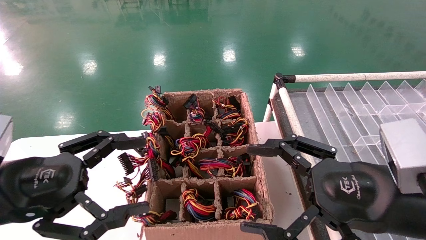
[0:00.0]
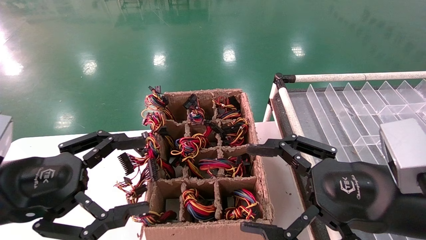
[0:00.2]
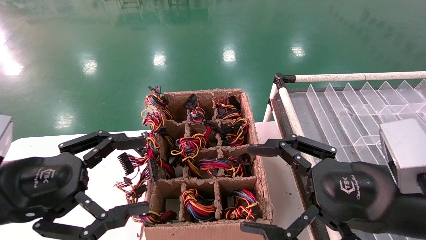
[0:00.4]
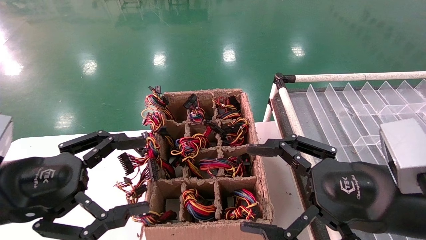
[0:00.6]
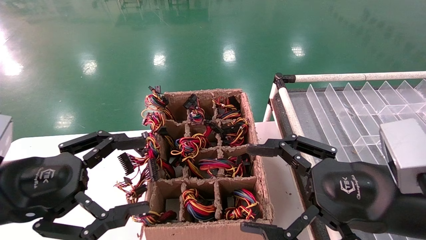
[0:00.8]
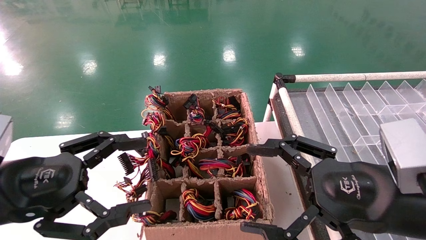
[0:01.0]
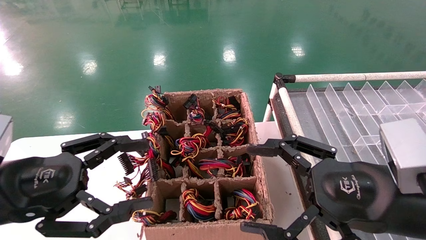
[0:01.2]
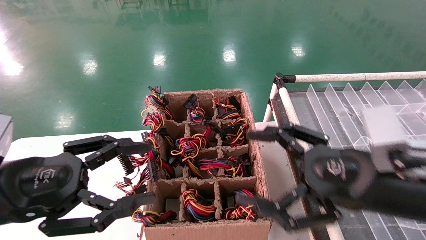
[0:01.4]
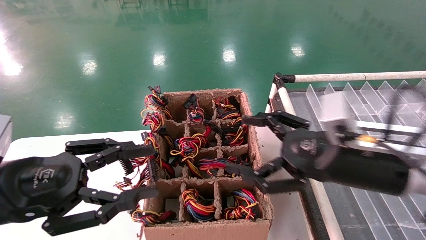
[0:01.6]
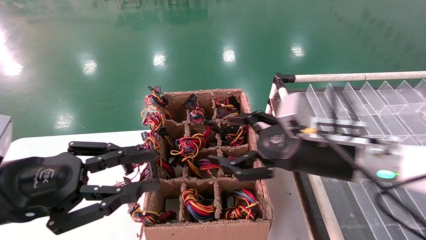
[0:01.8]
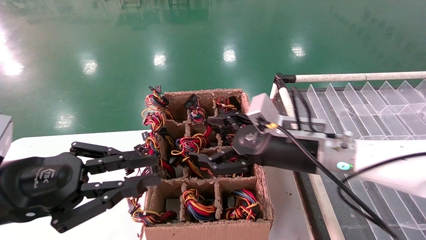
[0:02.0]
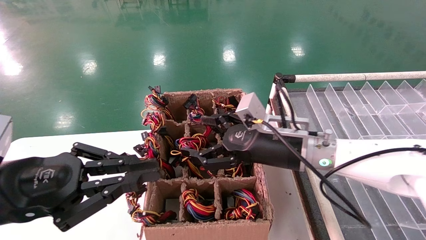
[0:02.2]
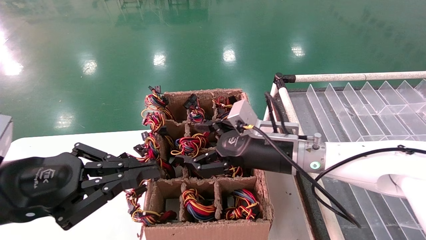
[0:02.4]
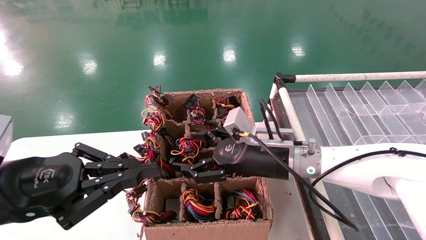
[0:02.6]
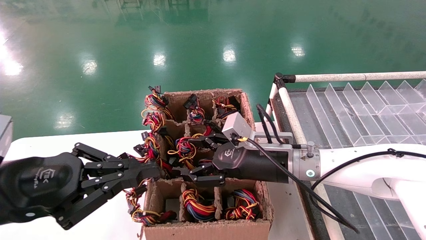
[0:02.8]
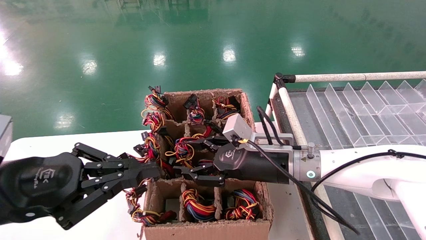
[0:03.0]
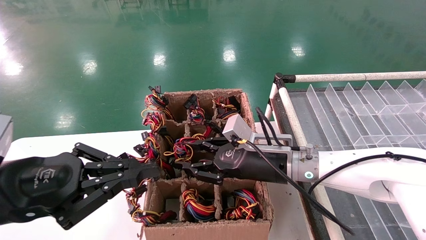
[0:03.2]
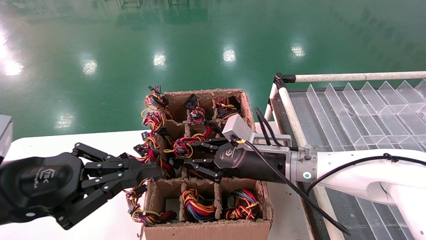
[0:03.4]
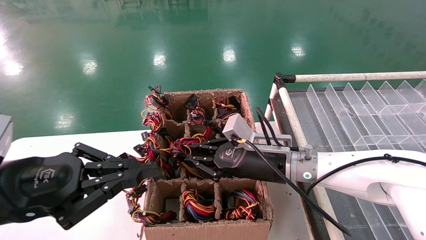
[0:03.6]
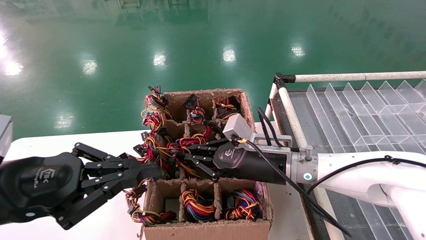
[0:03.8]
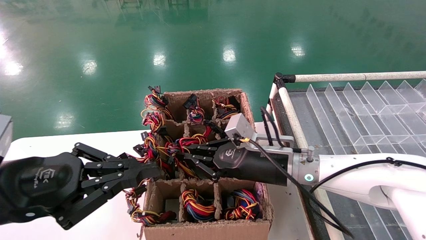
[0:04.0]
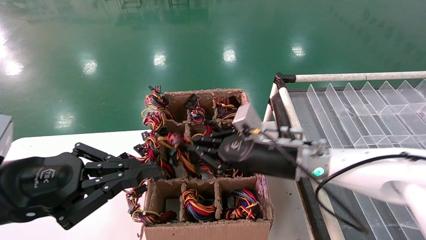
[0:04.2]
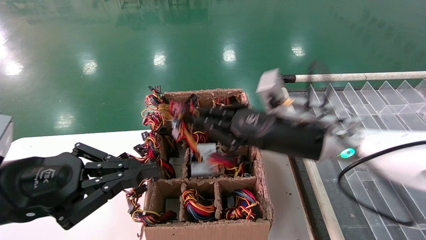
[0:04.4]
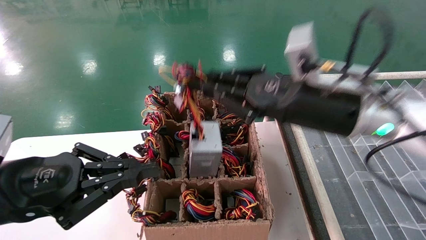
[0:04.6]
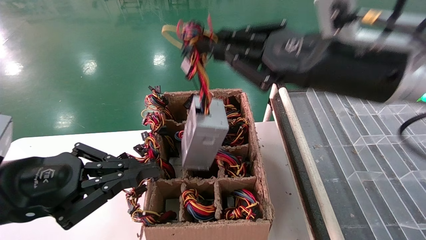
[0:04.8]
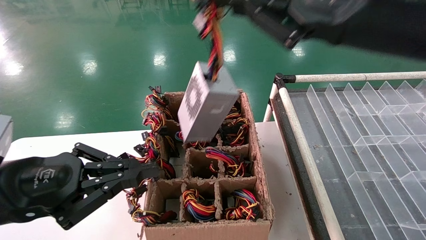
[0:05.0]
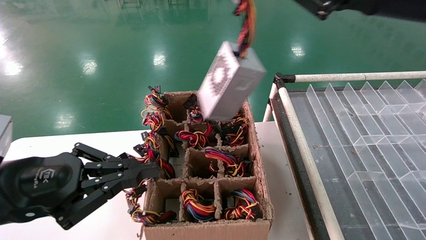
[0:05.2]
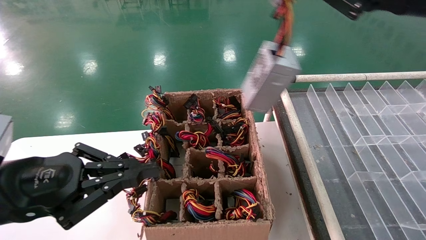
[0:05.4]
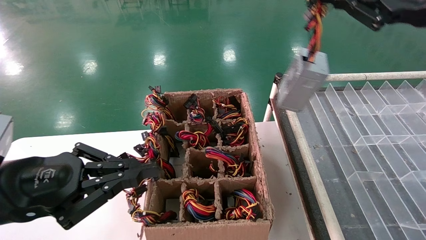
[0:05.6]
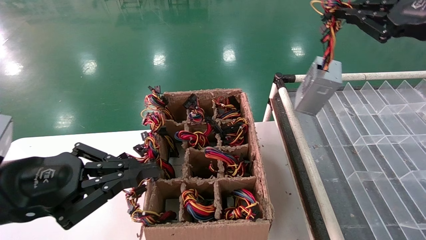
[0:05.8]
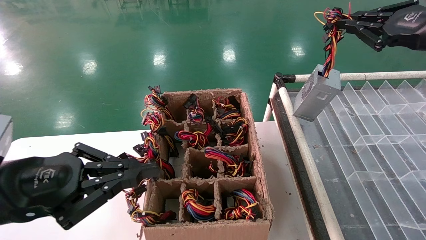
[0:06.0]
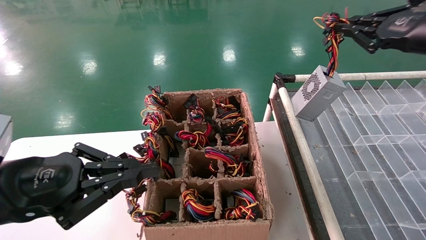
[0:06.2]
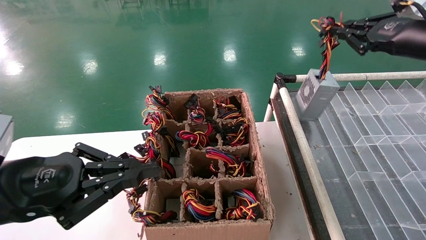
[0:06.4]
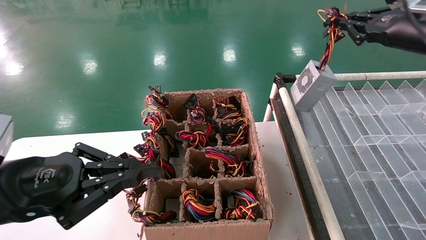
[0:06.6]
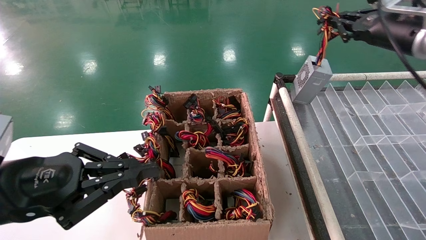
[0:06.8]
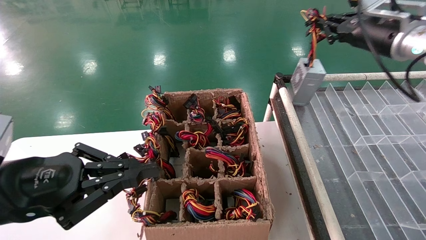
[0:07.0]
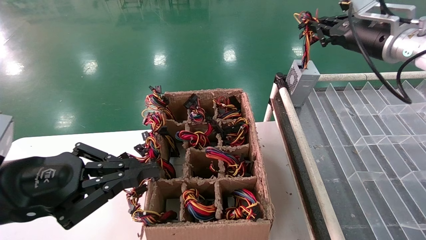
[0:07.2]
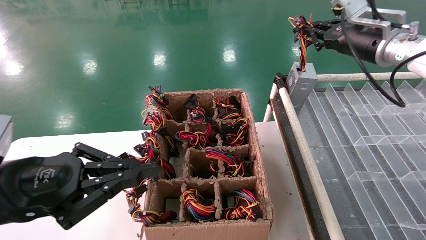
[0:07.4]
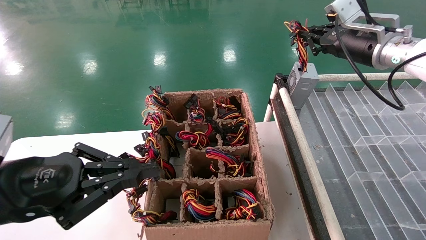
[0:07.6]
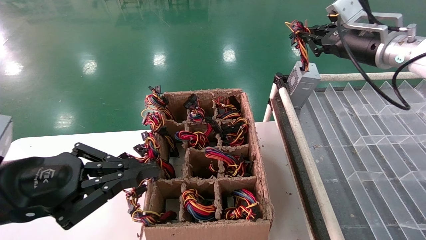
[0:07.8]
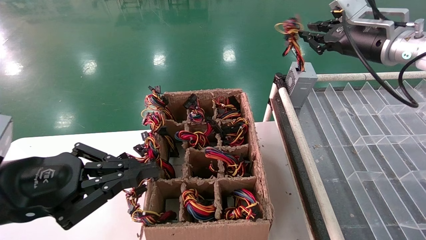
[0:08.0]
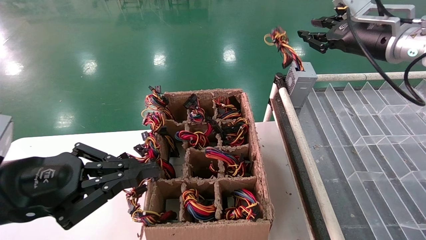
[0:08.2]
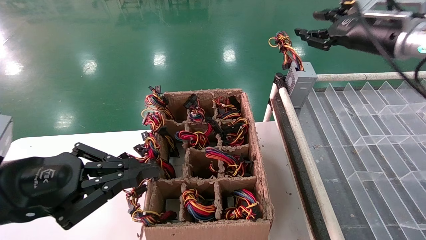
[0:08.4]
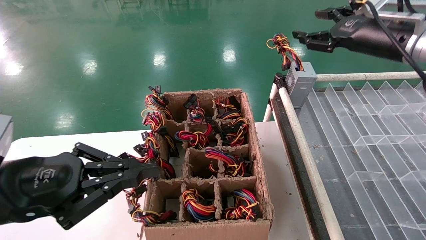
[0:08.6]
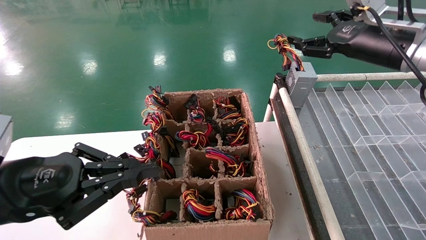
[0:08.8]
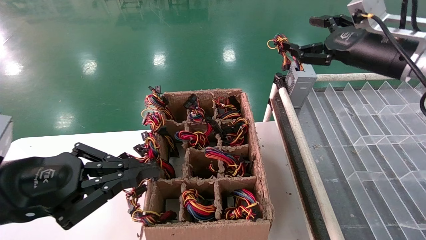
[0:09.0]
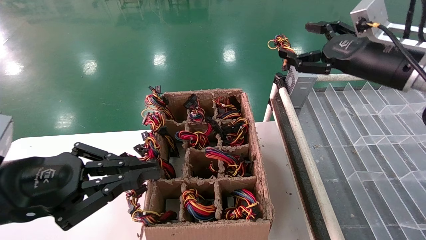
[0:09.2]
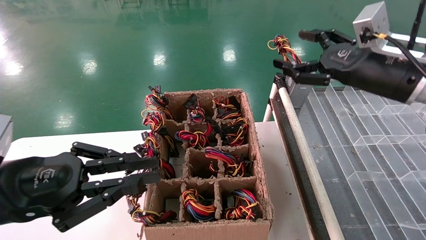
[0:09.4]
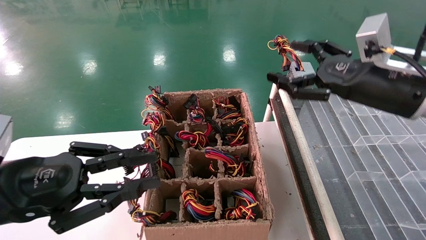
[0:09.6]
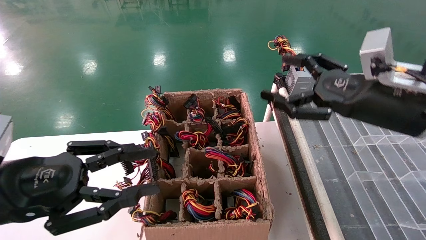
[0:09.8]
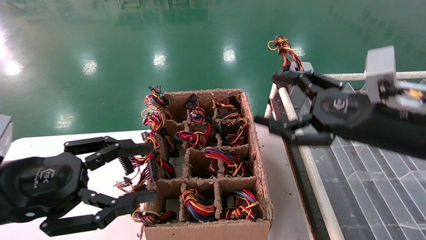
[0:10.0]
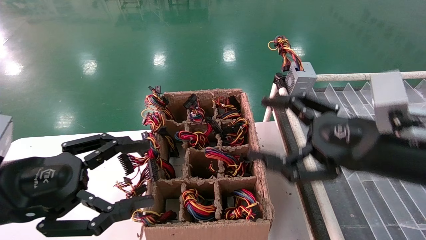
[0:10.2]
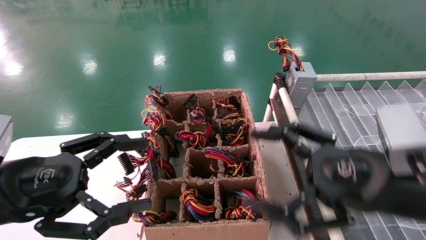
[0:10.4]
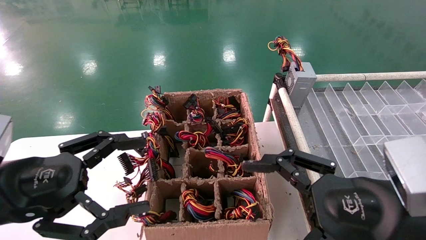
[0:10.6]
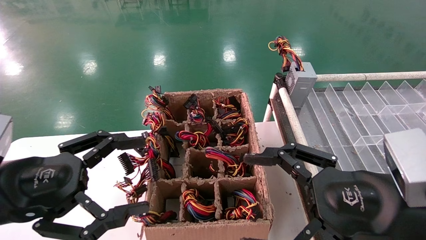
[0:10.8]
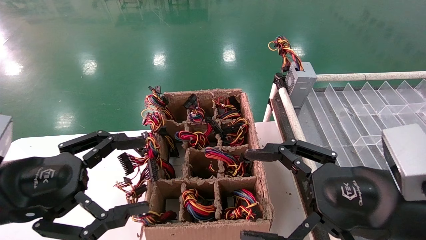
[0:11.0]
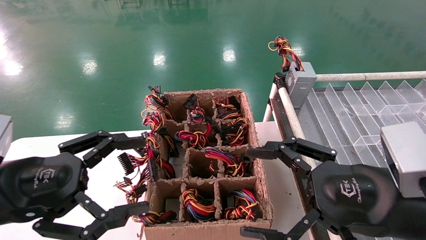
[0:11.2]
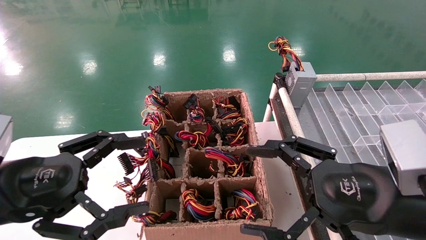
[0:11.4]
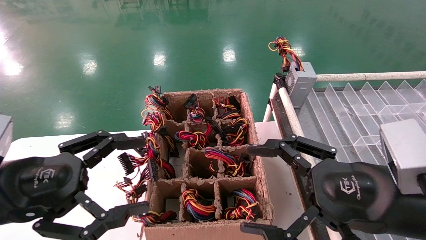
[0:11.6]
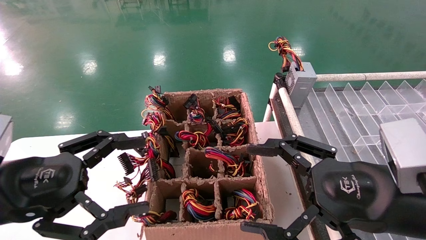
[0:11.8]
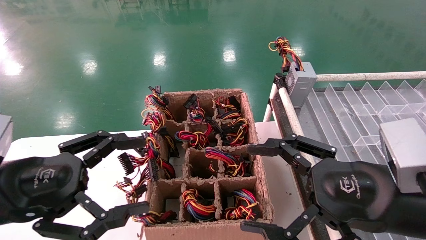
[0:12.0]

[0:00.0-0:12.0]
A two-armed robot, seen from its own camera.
Step, 0:01.6 to 0:03.6: Grab the main unit power supply from the containment box.
Step, 0:03.8 to 0:08.2: Place the main unit power supply in the designated area.
0:00.0 to 0:01.6: The right gripper is displaced forward by approximately 10 cm; the left gripper closes.
0:01.6 to 0:03.0: The left gripper closes its fingers. The right gripper heads forward, to the left and downward, covering some 15 cm.
0:03.0 to 0:04.4: The right gripper travels upward by some 10 cm, and closes.
0:04.4 to 0:06.0: The right gripper is displaced to the right and upward by roughly 30 cm.
0:06.0 to 0:07.6: The right gripper goes about 10 cm forward and to the left.
0:07.6 to 0:09.0: The right gripper travels backward by about 5 cm, and opens its fingers.
0:09.0 to 0:10.4: The right gripper heads backward, downward and to the left, covering approximately 25 cm, while the left gripper opens its fingers.
0:10.4 to 0:12.0: The grippers make only small movements.

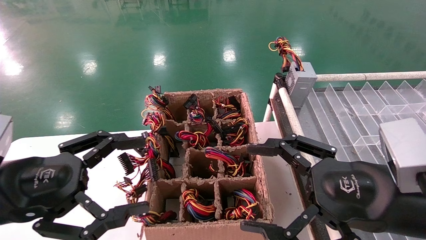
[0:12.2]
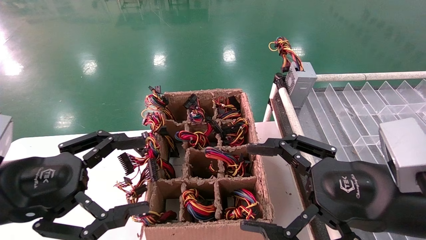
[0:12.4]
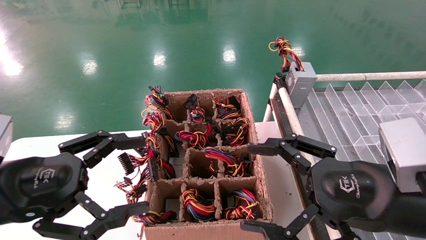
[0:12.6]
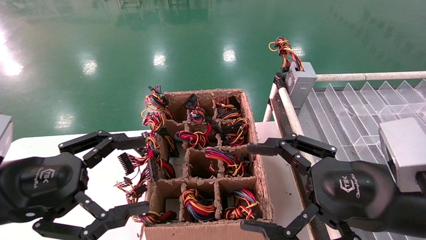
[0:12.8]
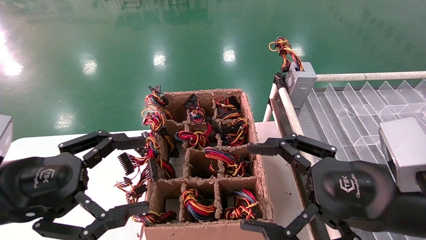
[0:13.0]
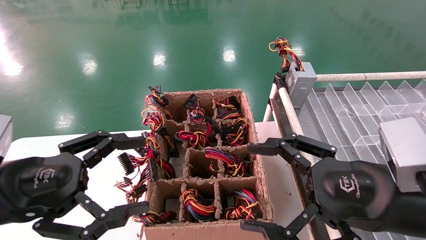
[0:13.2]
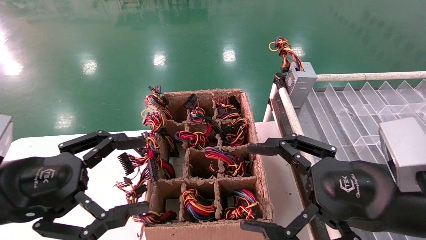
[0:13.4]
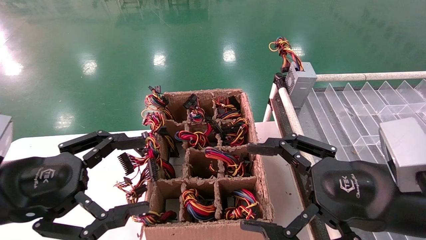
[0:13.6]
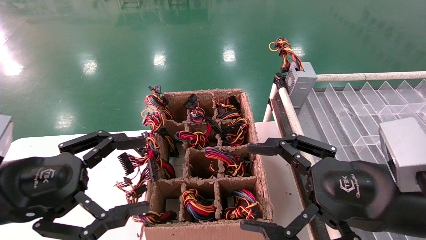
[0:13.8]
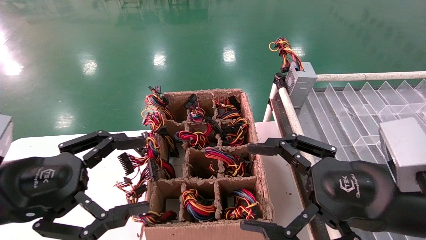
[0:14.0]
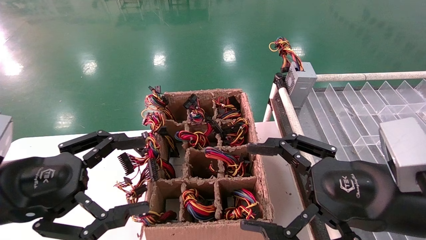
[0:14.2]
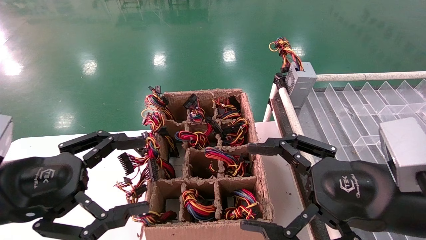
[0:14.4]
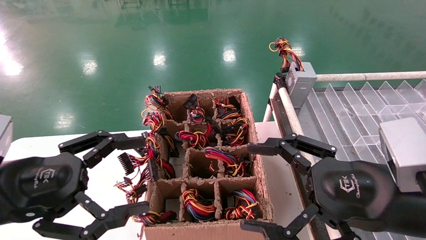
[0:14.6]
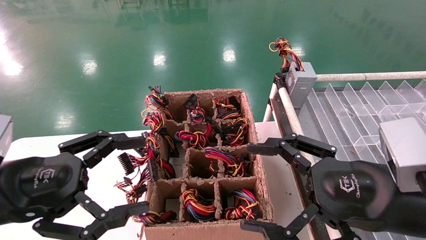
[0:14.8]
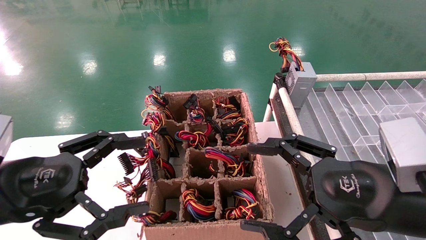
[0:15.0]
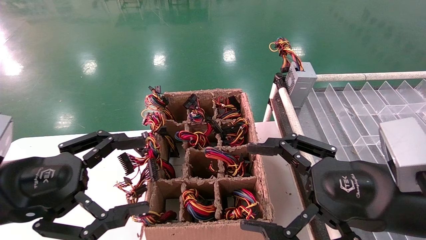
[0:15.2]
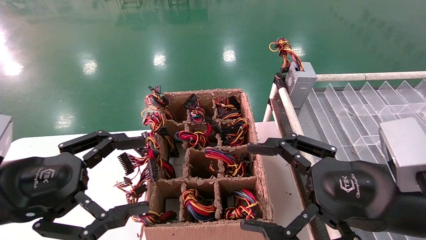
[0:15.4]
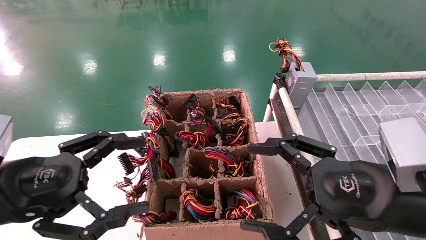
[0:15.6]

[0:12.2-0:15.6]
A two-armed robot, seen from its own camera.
0:12.2 to 0:15.6: Both grippers stay about where they are.
